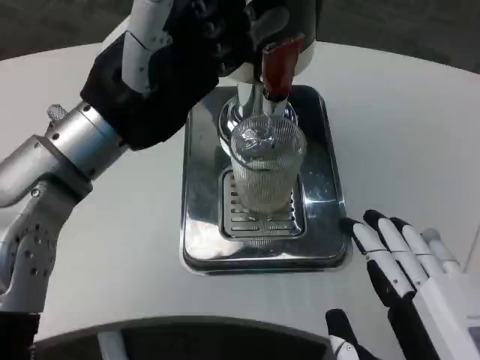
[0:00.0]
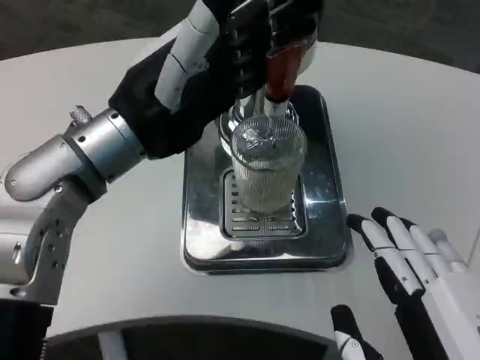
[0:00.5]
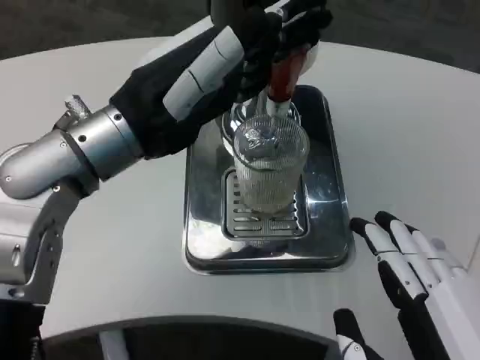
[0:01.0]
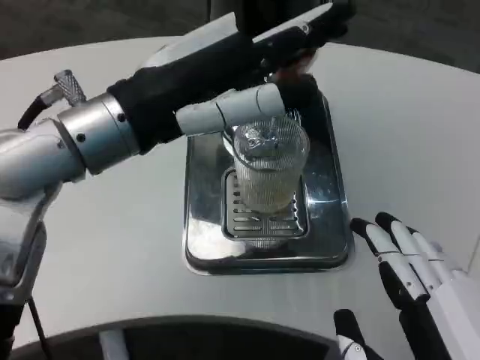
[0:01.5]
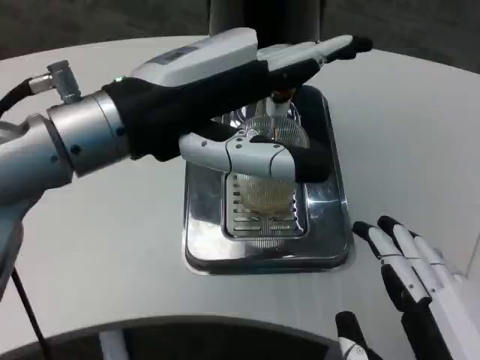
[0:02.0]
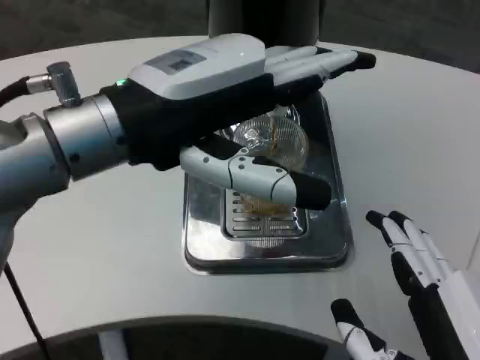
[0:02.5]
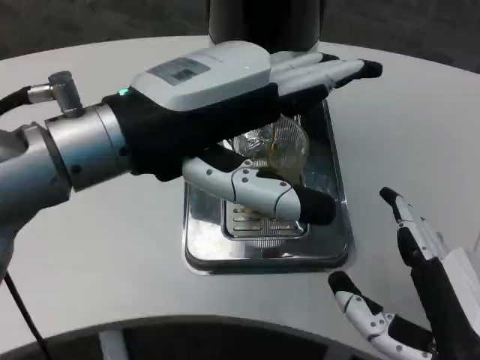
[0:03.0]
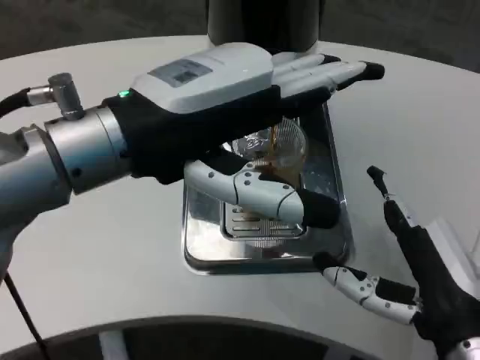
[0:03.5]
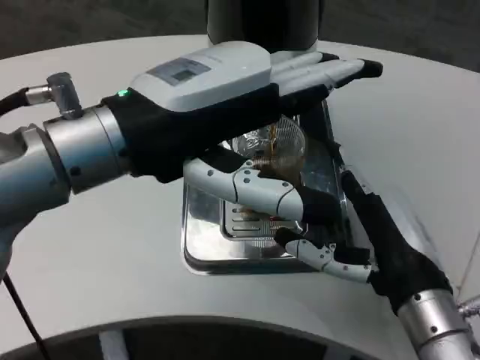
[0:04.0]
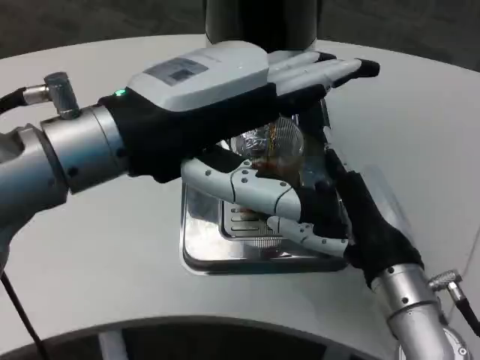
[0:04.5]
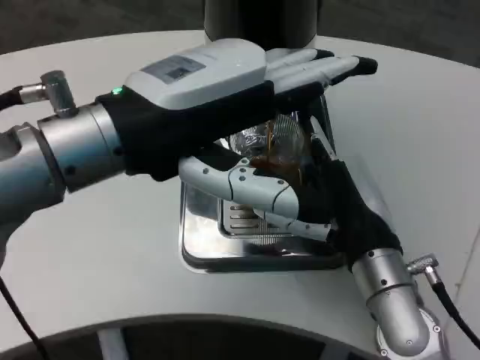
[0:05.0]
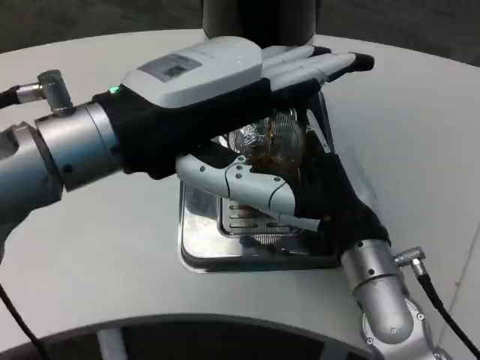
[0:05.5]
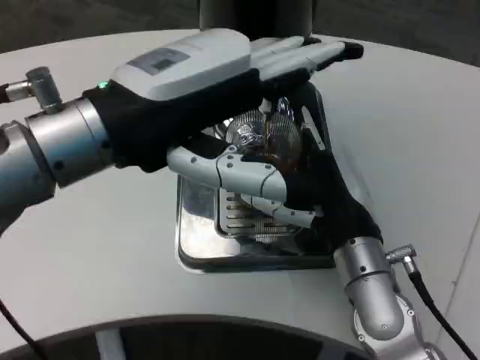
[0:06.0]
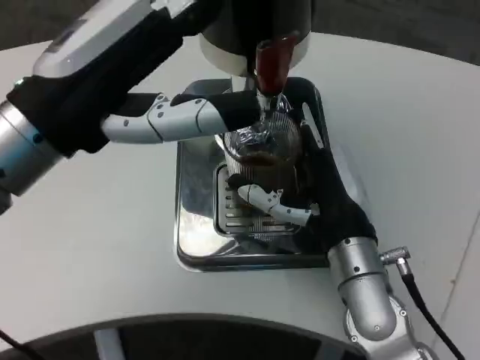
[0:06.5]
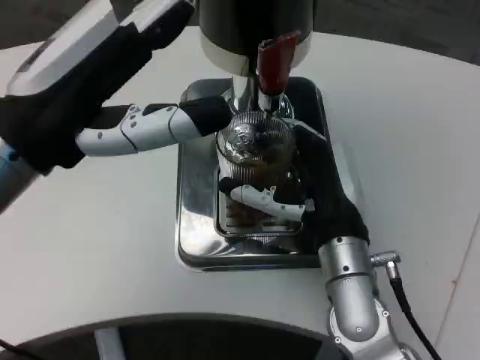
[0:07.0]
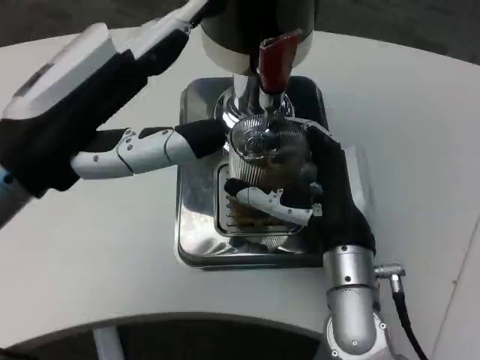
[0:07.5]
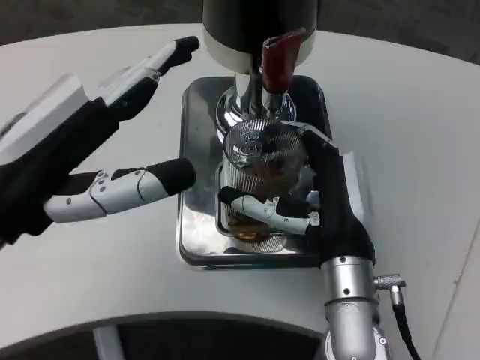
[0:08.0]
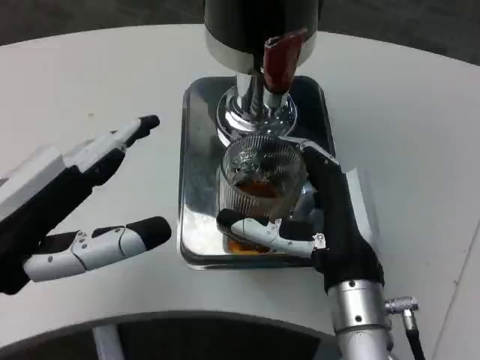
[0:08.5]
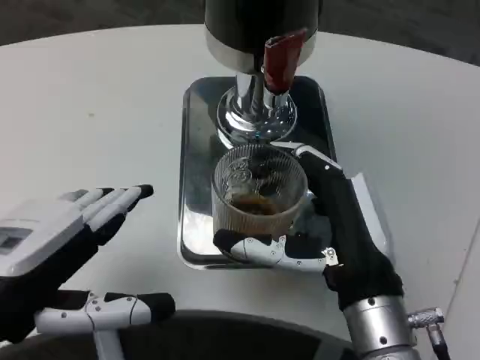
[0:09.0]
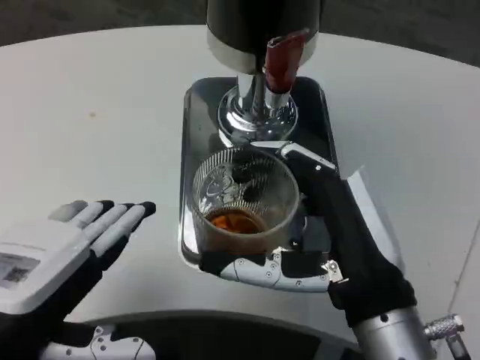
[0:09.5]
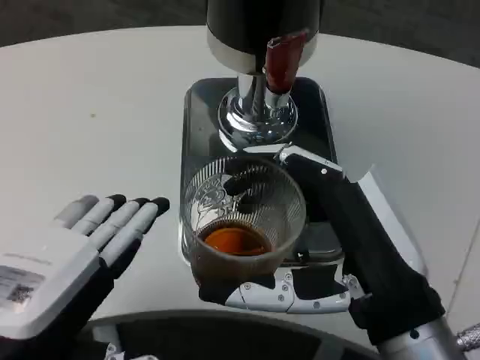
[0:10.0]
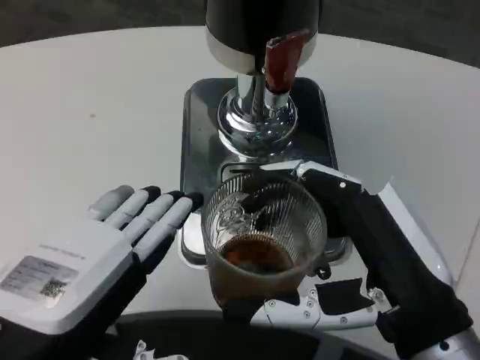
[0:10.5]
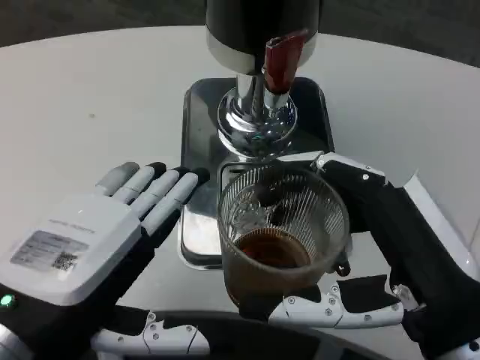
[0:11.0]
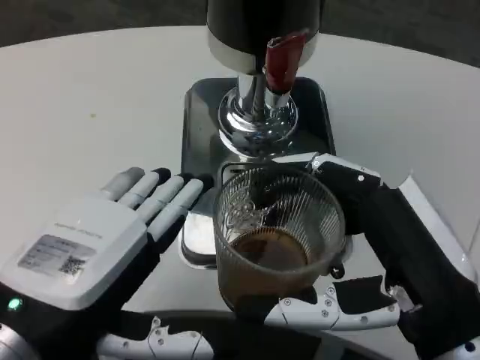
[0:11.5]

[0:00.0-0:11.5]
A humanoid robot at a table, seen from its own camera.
Task of the whole recording: Grasp the cup under the faucet to collect the drink, then remove the cup.
0:00.0 to 0:02.0: The left hand ends up about 5 cm from where it was.
0:02.0 to 0:04.0: The right hand goes roughly 15 cm forward.
0:04.0 to 0:06.0: The right hand is displaced forward by about 5 cm.
0:06.0 to 0:07.5: The left hand ends up about 5 cm from where it was.
0:07.5 to 0:09.5: The right hand travels backward by about 10 cm, while the left hand shifts approximately 10 cm backward and downward.
0:09.5 to 0:11.5: The right hand changes place by roughly 5 cm.

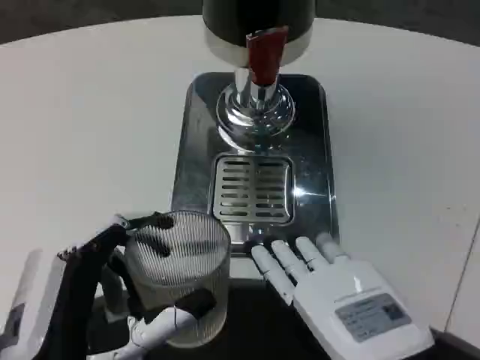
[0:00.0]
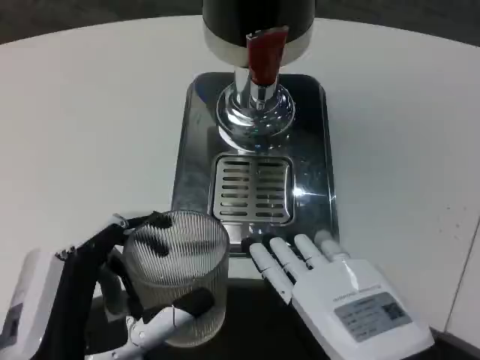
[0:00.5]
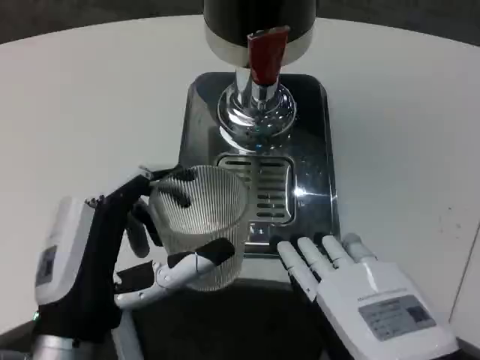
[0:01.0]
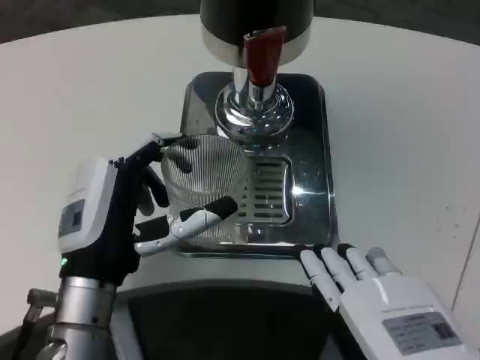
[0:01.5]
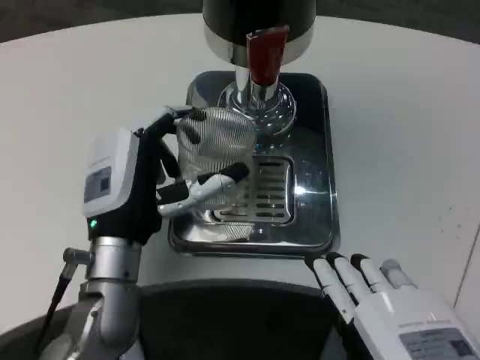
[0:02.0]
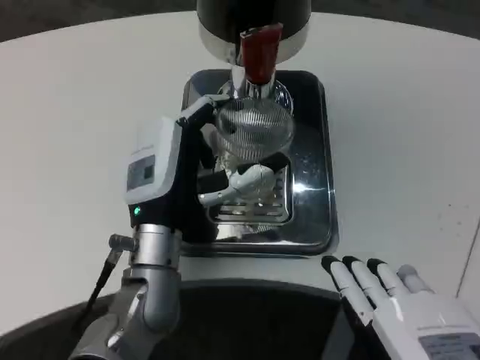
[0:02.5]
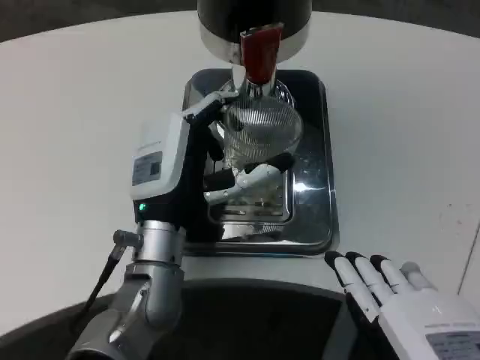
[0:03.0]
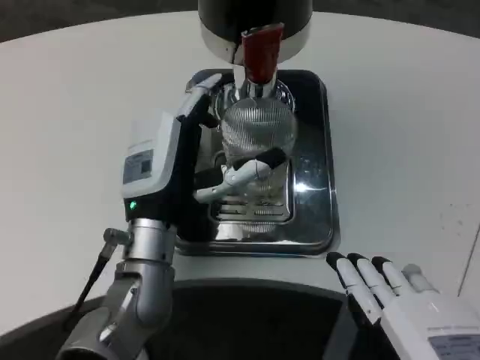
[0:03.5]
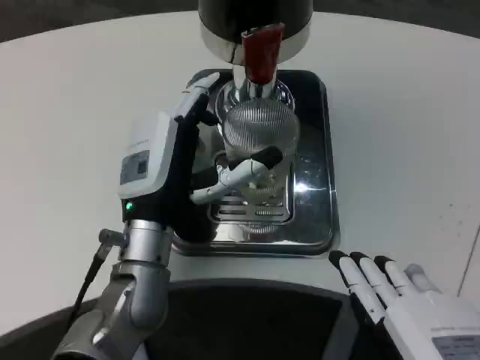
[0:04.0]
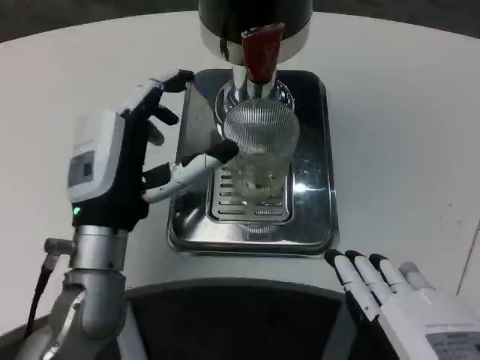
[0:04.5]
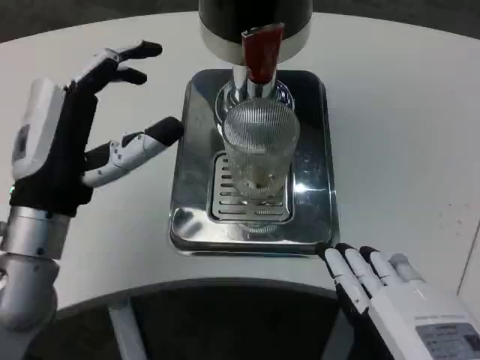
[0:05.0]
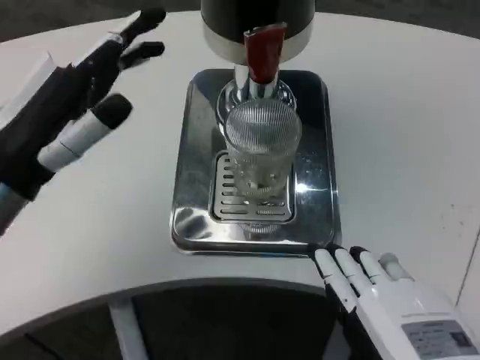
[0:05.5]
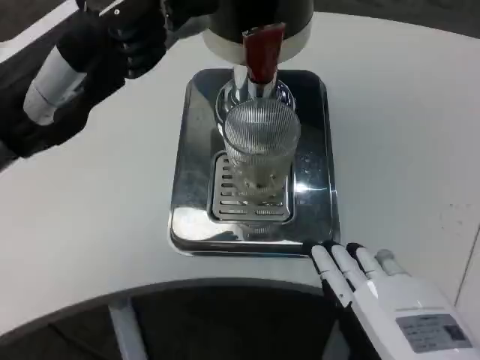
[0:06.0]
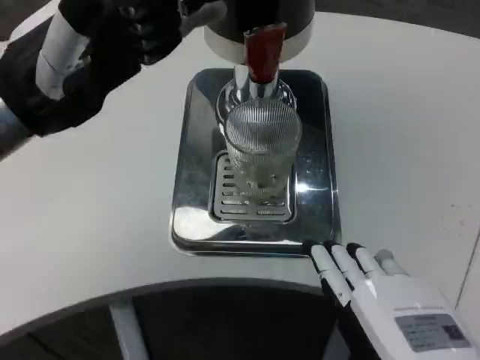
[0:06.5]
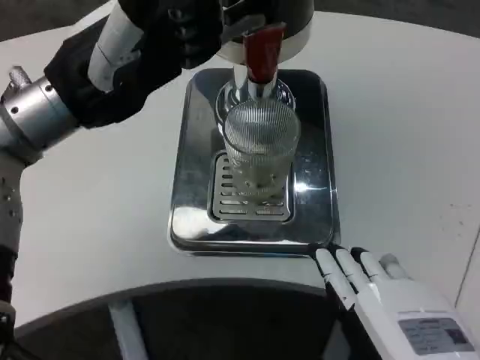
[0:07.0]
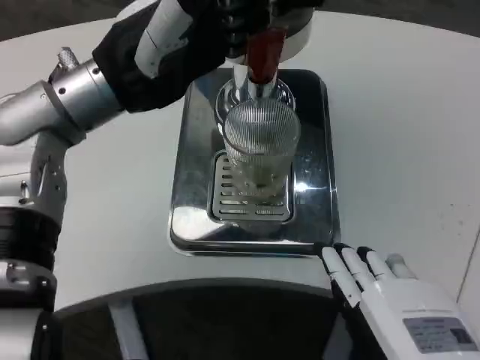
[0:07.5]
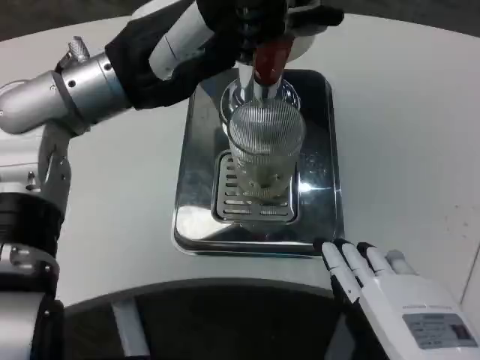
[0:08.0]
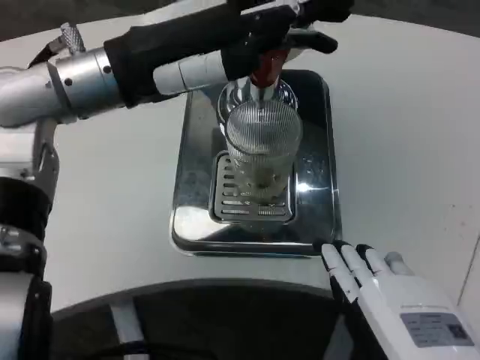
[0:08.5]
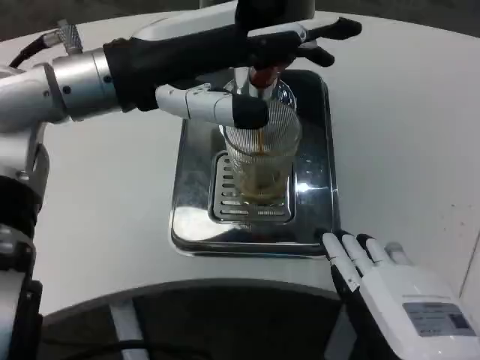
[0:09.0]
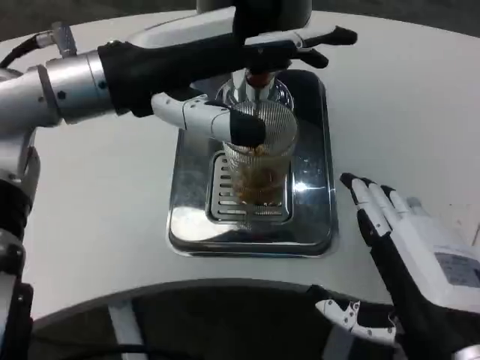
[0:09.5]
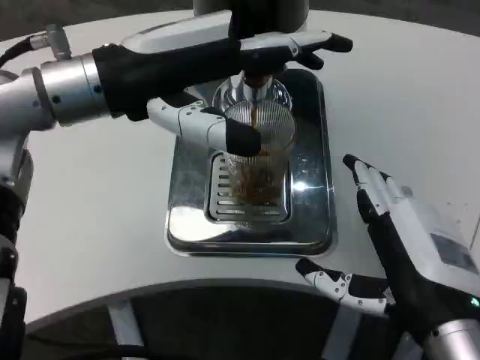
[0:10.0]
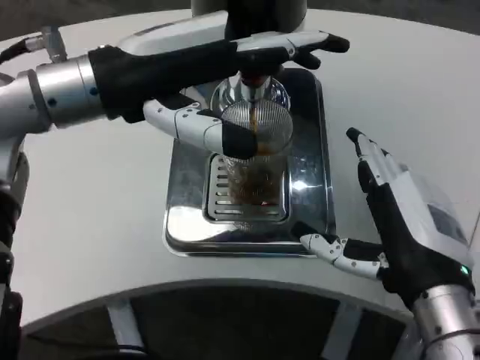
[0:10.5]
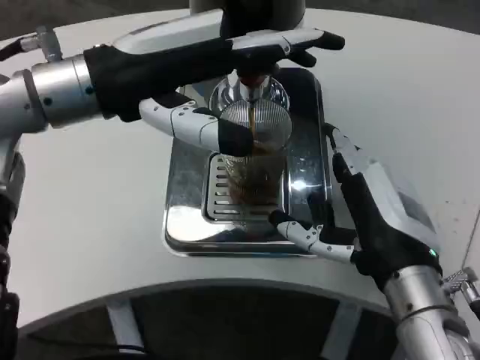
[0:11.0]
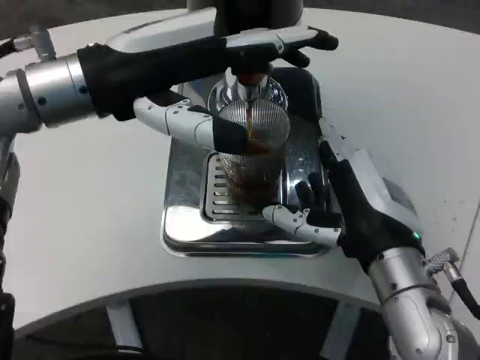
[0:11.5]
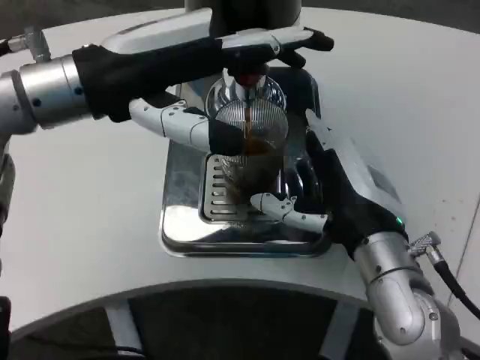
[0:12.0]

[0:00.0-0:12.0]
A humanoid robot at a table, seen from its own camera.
Task of the whole recording: Grasp the cup under the faucet to collect the drink, then remove the cup.
0:00.0 to 0:02.0: The left hand is displaced forward by about 15 cm.
0:04.0 to 0:06.0: The left hand travels upward and to the left by approximately 20 cm.
0:06.0 to 0:08.0: The left hand shifts about 10 cm forward and to the right.
0:08.0 to 0:10.0: The right hand moves forward, some 10 cm.
0:10.0 to 0:12.0: The right hand goes approximately 10 cm forward.

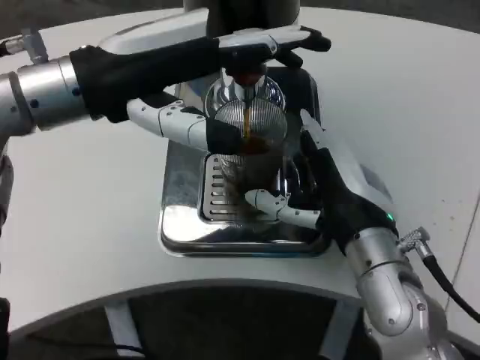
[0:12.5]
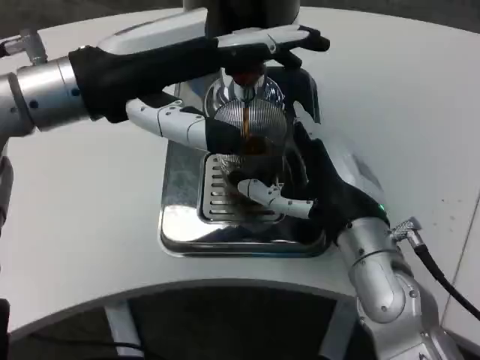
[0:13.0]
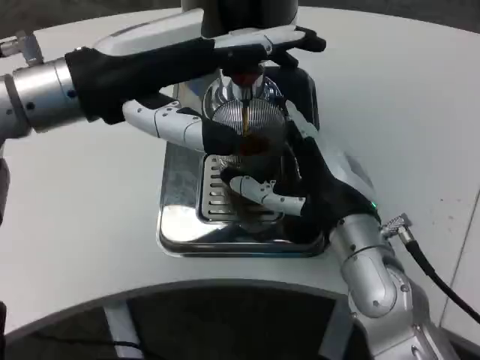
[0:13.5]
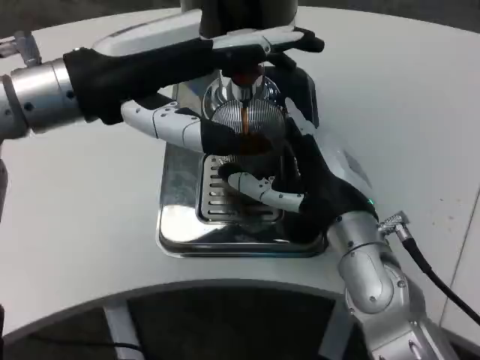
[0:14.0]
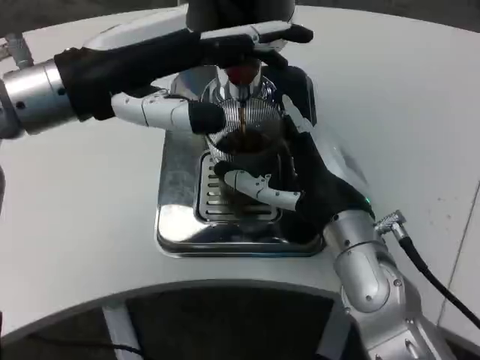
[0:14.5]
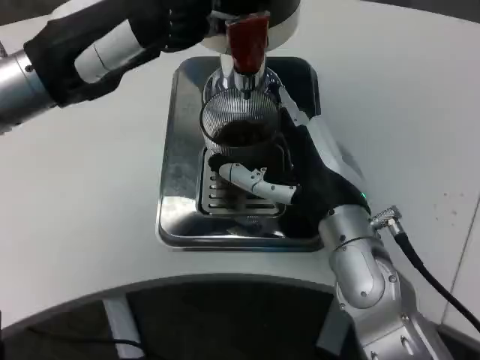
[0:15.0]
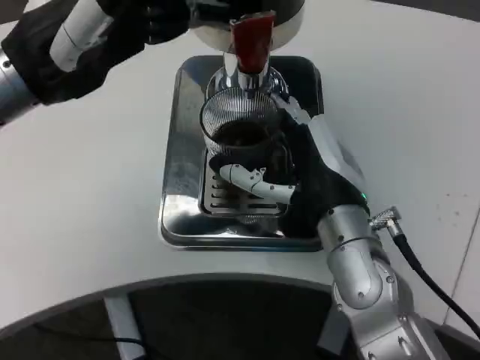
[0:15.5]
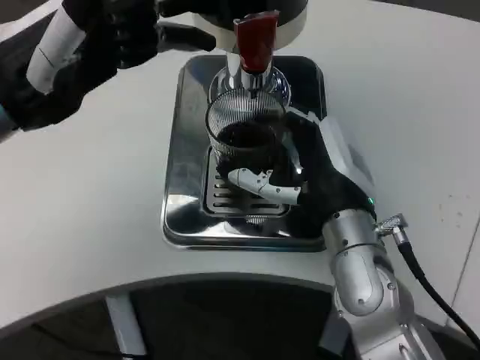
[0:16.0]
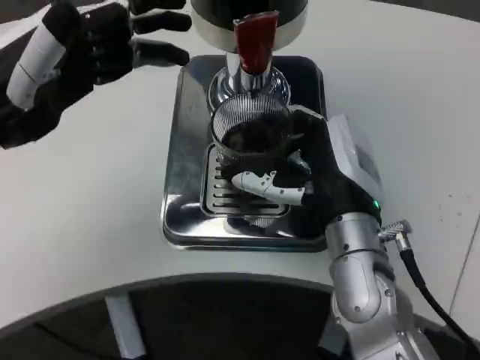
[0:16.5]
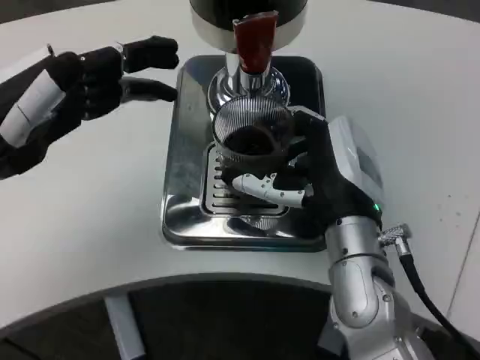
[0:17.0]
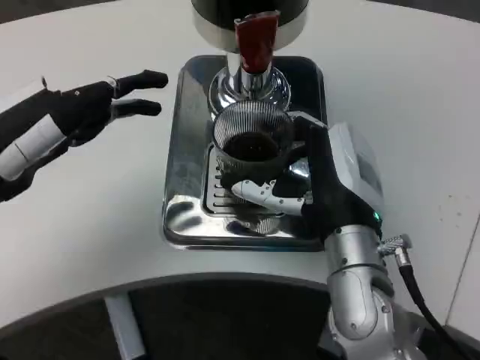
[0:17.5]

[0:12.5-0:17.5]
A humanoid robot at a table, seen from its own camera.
Task of the whole recording: Grasp the cup under the faucet to collect the drink, then remove the cup.
0:15.0 to 0:17.5: The left hand goes roughly 10 cm downward, to the left and backward.
